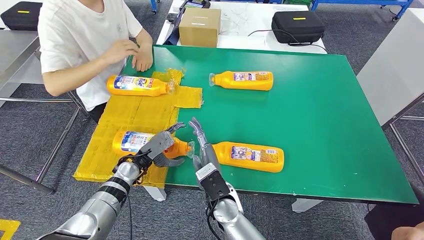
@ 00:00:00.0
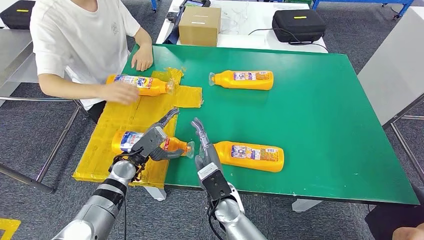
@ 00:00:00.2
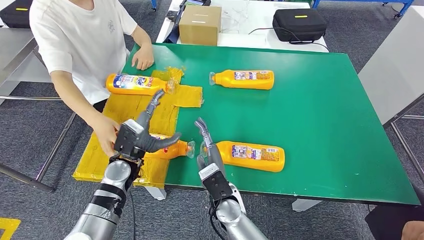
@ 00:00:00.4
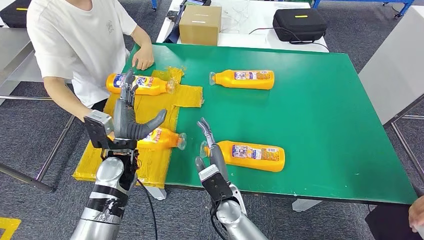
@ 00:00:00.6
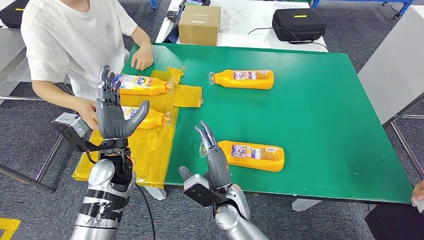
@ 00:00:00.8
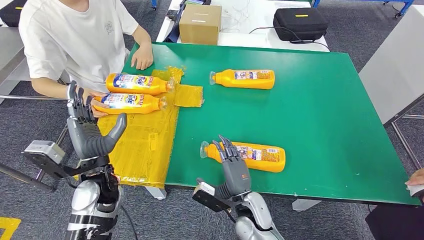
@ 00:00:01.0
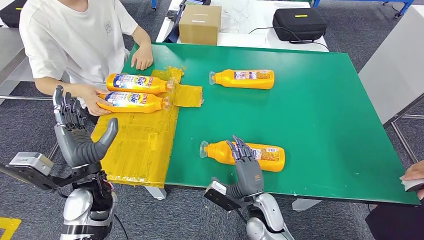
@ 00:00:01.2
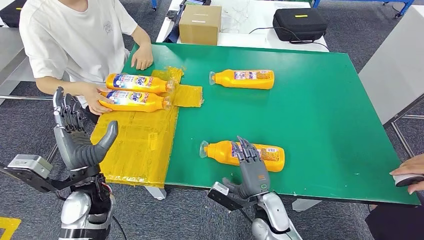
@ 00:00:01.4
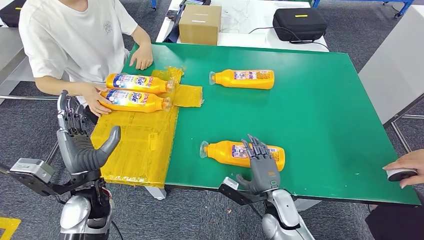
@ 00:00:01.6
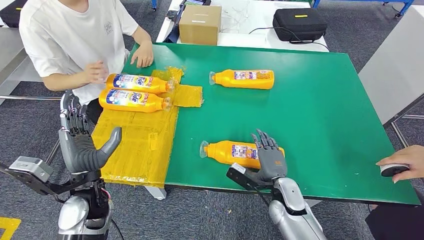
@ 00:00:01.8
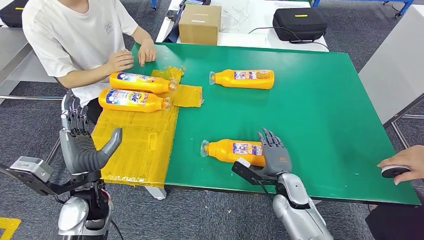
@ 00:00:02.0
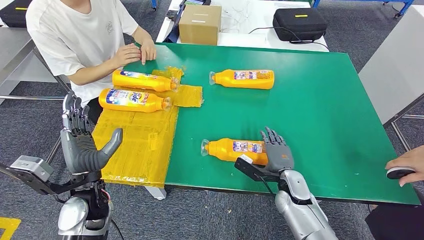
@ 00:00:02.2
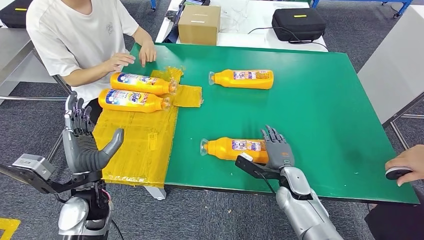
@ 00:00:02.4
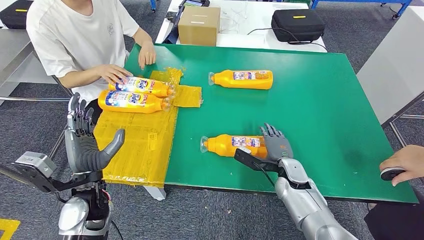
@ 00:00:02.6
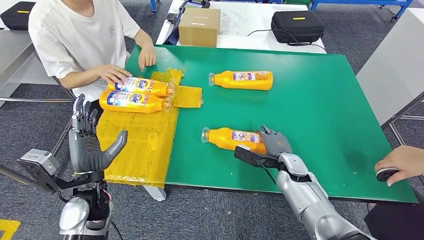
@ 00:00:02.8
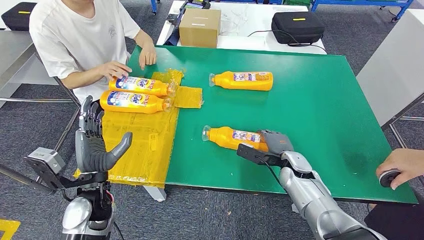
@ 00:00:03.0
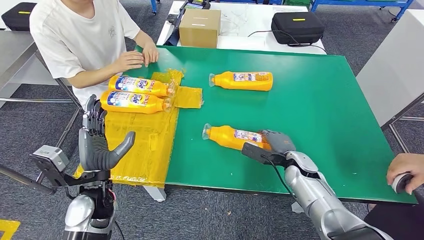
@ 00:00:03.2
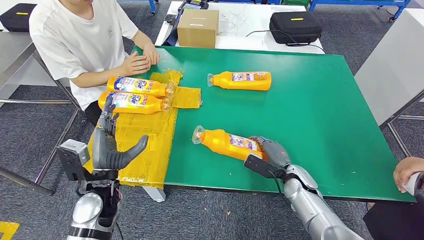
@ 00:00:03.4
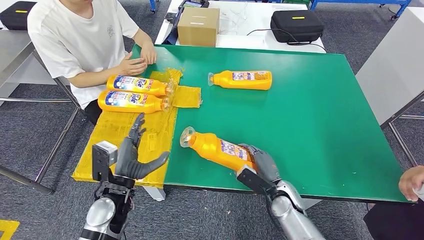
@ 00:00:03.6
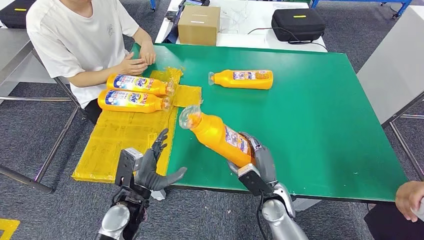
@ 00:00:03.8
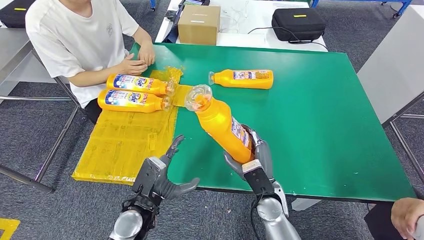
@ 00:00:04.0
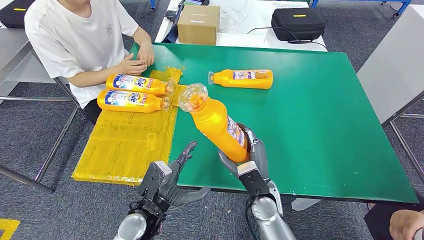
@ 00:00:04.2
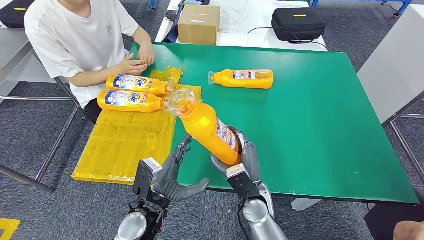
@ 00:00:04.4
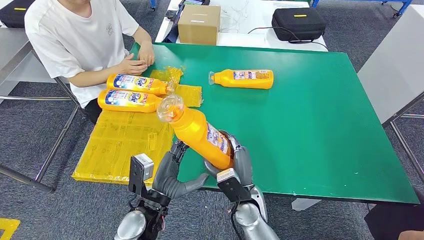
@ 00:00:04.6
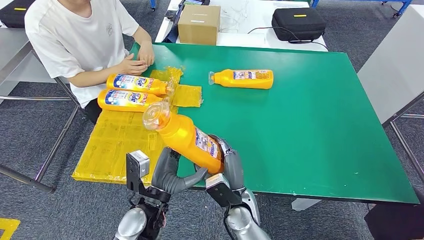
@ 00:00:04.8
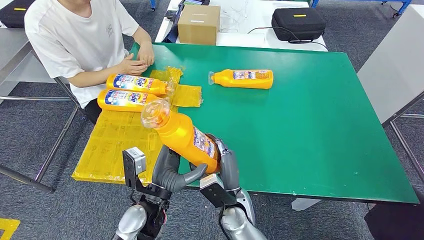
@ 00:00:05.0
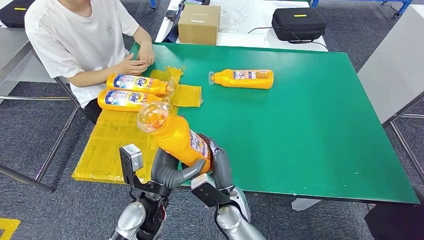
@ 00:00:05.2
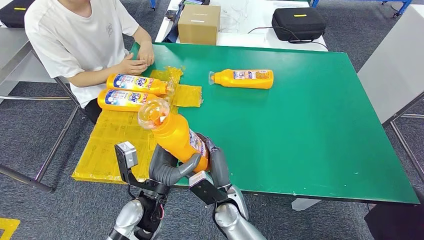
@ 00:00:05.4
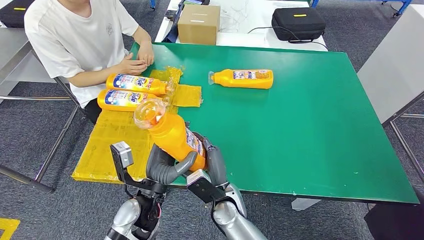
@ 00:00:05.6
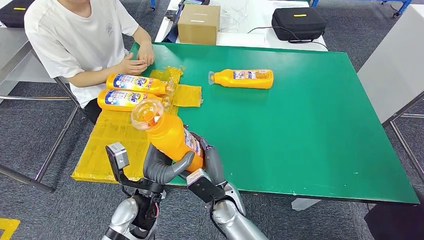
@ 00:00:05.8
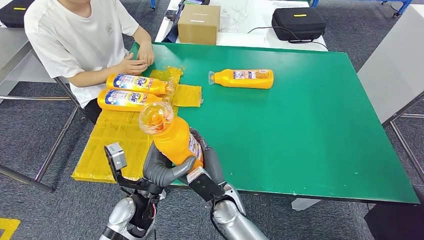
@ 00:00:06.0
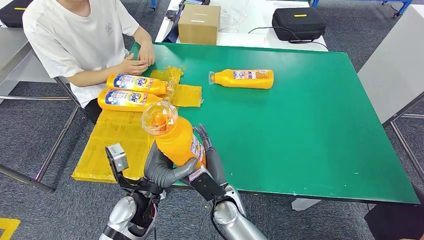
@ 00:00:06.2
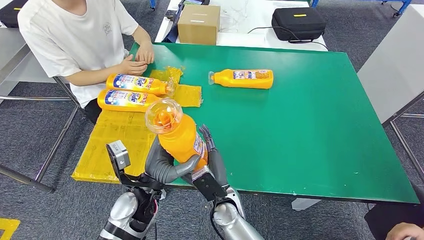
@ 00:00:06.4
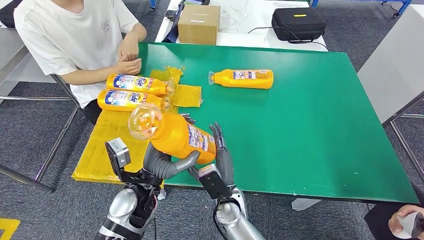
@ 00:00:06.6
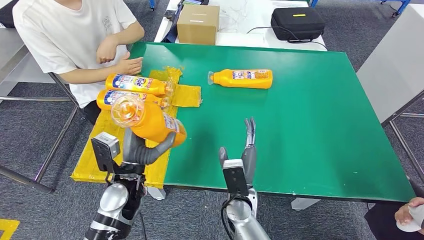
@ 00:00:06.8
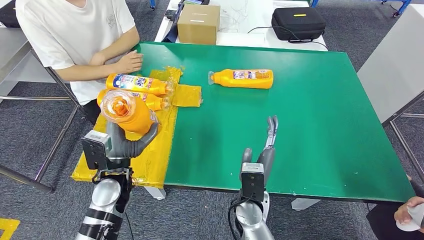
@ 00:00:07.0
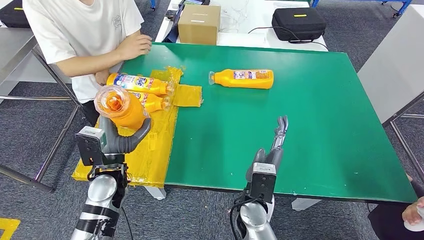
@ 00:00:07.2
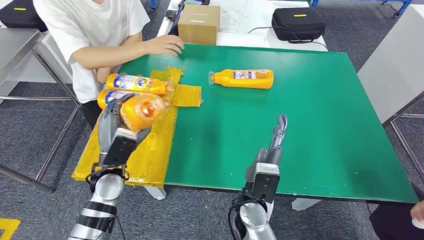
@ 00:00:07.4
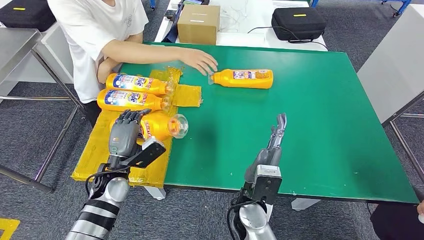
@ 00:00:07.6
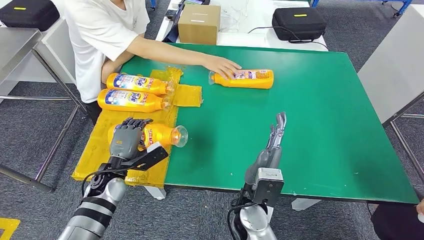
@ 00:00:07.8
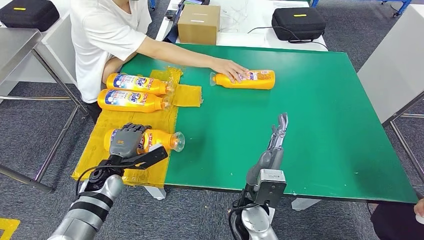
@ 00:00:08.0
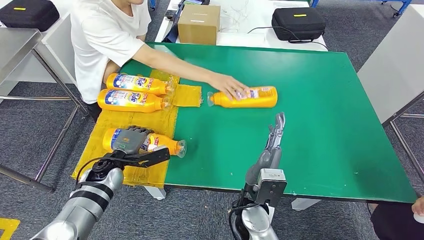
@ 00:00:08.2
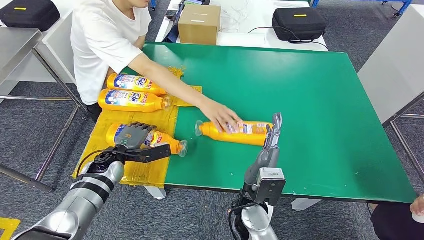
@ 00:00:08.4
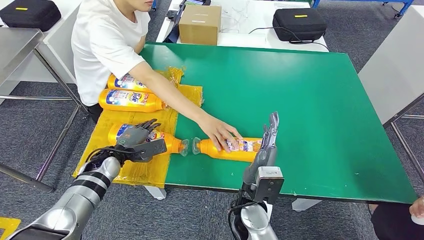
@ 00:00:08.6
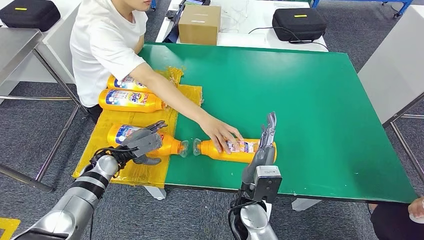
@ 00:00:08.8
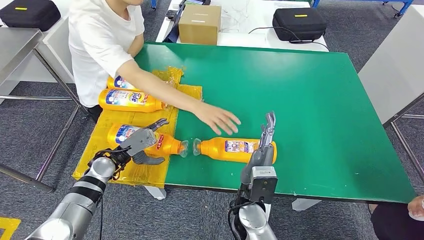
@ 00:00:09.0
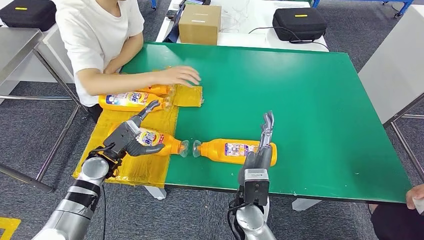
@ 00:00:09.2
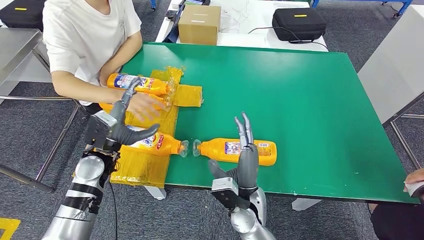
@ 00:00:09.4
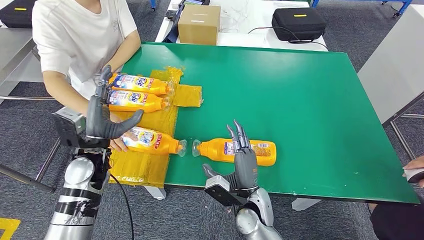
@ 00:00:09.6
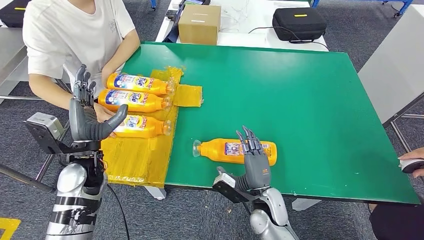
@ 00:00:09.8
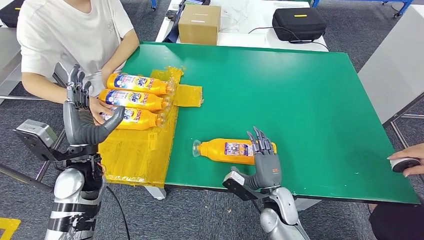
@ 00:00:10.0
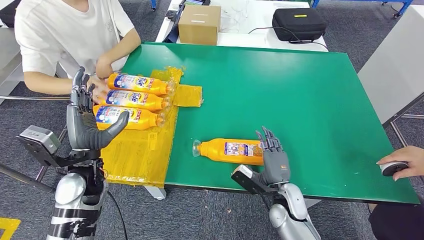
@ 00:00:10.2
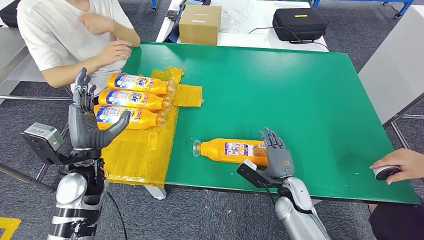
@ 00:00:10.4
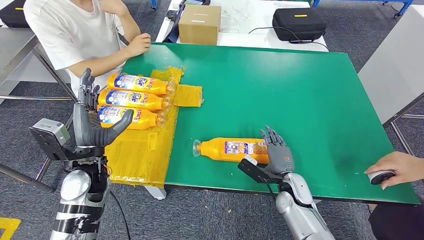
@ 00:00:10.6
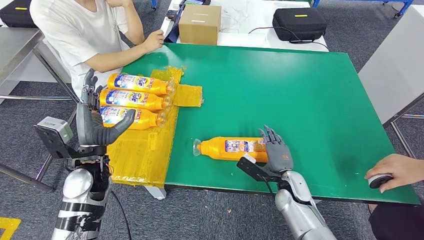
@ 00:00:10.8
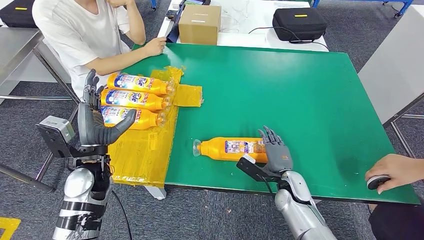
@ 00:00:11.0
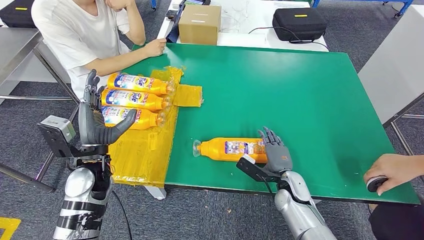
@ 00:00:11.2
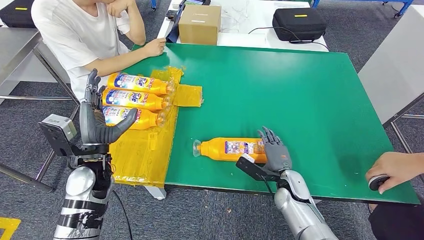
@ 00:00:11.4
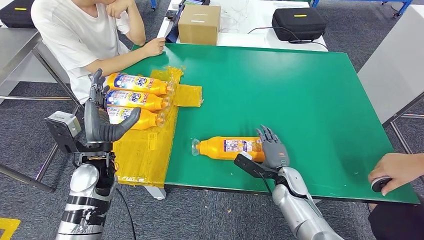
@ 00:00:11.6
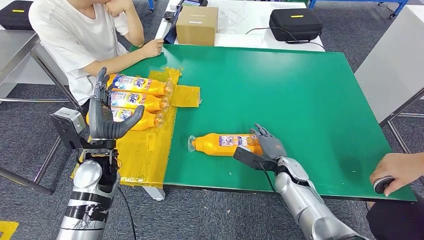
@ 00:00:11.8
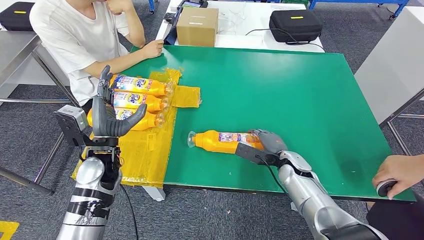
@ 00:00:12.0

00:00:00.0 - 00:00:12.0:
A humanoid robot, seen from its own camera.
Step, 00:00:00.0 - 00:00:04.6: Pick up the bottle from the table.
Step, 00:00:04.8 - 00:00:08.4: Flip the bottle to face forward.
00:00:04.4 - 00:00:06.0: The right hand is displaced to the left by roughly 10 cm.

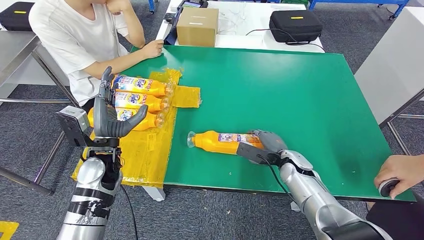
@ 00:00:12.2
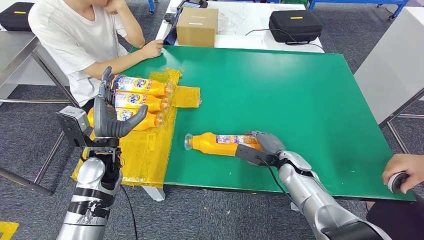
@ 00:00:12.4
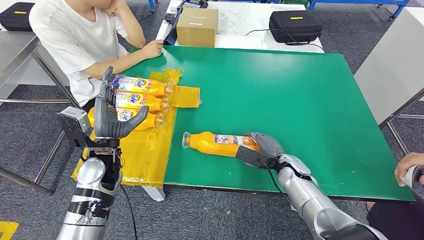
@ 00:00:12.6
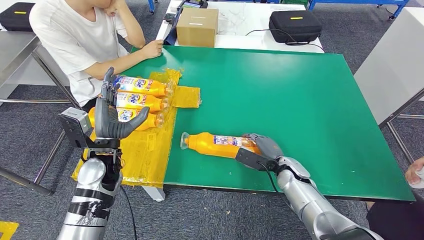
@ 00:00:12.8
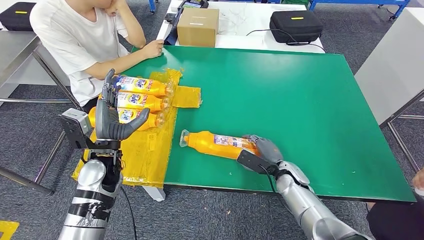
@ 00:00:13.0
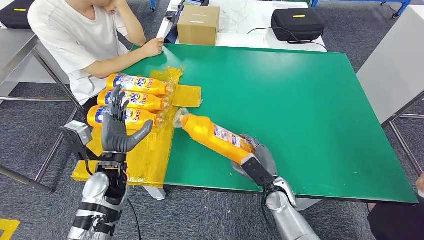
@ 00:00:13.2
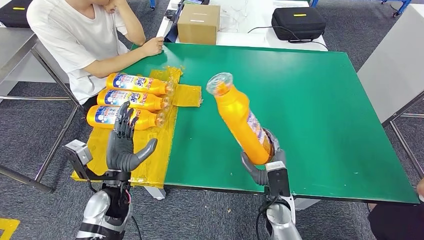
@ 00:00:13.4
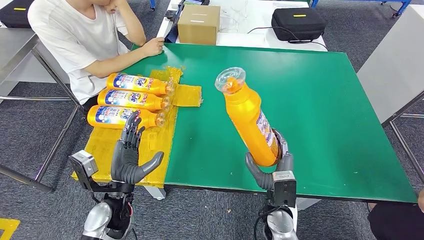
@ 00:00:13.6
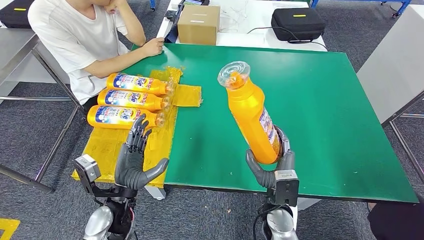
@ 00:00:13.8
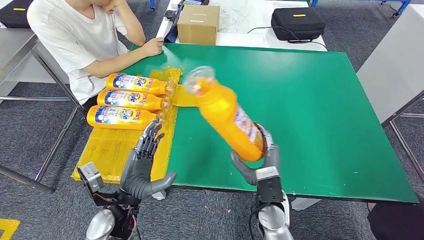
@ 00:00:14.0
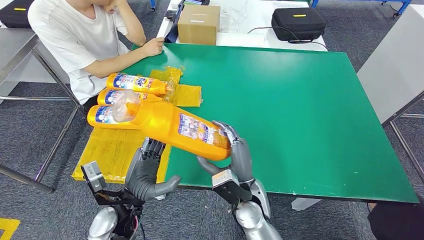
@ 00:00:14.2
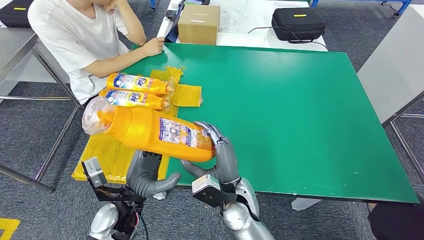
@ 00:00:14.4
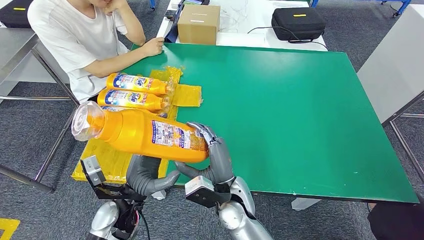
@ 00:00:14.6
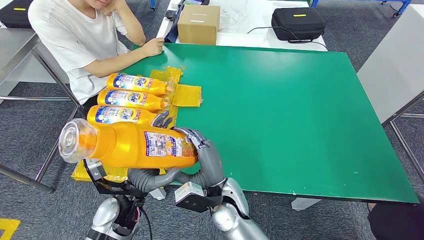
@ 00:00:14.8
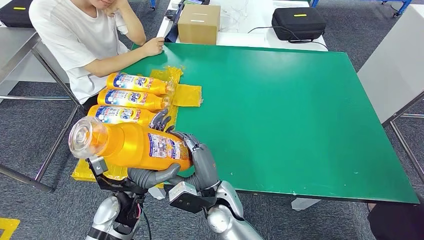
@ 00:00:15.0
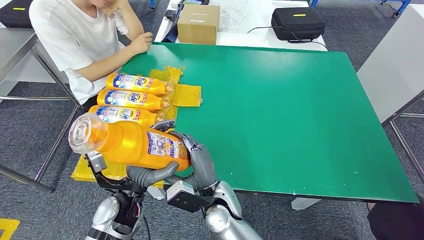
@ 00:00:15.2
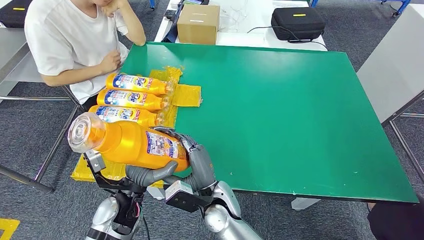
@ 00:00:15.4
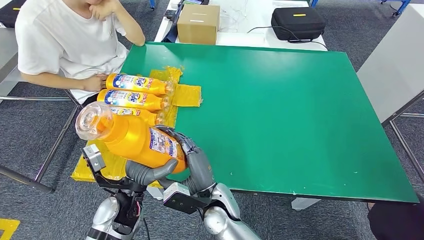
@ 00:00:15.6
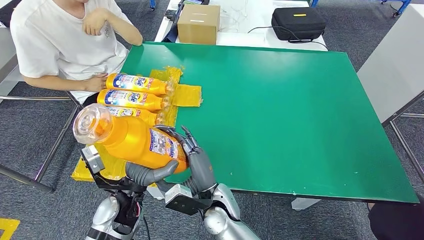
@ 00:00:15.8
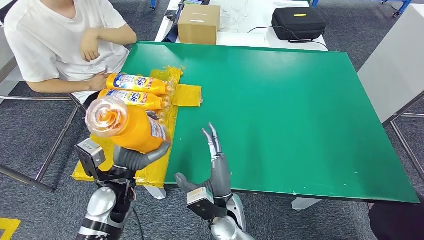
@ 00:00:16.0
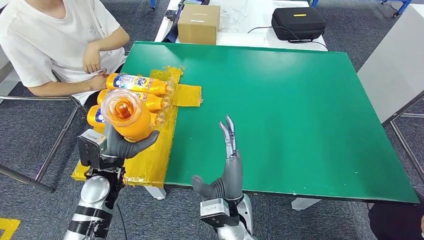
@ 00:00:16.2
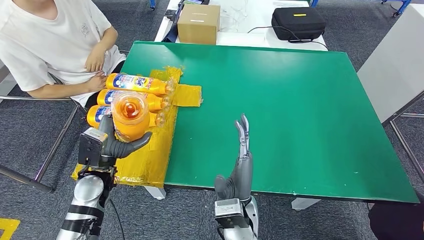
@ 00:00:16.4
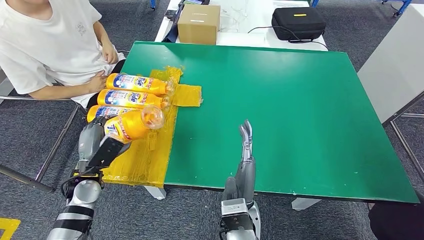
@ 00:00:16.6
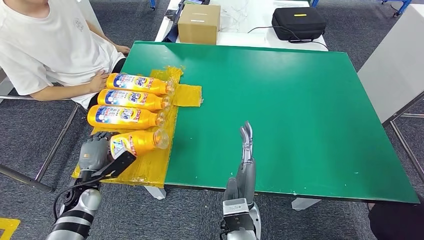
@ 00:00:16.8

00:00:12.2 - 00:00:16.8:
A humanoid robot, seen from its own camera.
Step, 00:00:13.8 - 00:00:16.8: Flip the bottle to face forward.
00:00:13.8 - 00:00:15.2: The right hand heads to the left, covering roughly 15 cm.
